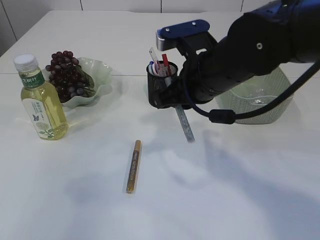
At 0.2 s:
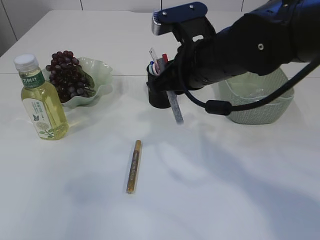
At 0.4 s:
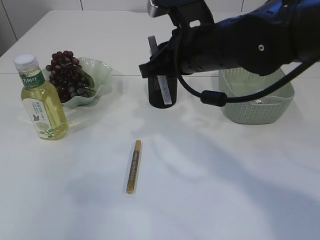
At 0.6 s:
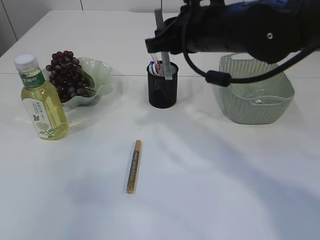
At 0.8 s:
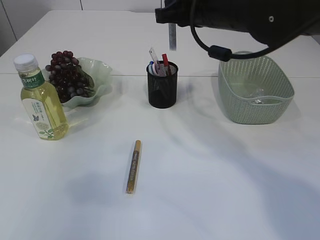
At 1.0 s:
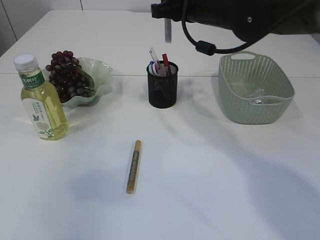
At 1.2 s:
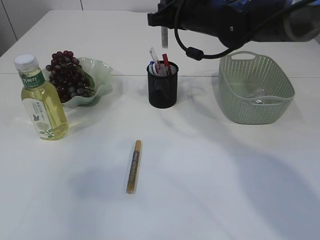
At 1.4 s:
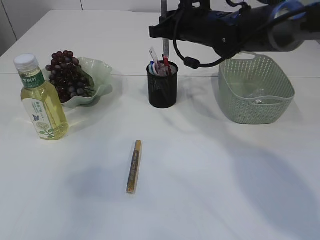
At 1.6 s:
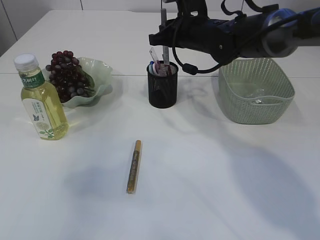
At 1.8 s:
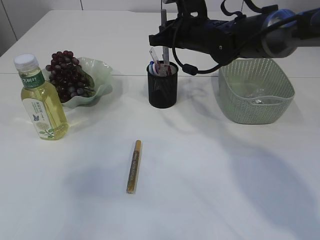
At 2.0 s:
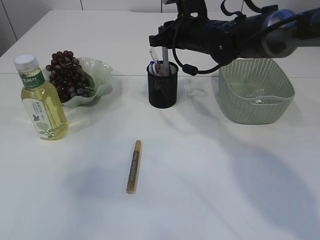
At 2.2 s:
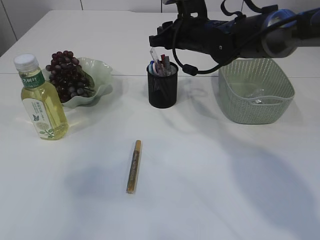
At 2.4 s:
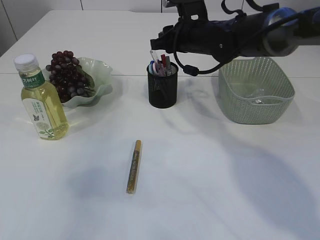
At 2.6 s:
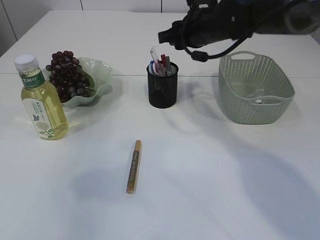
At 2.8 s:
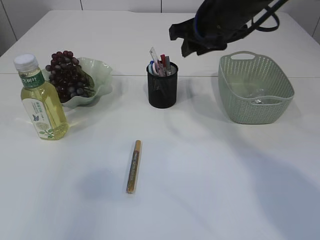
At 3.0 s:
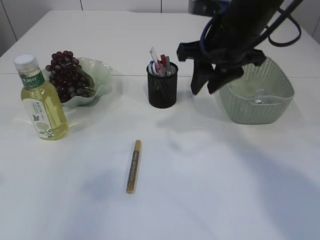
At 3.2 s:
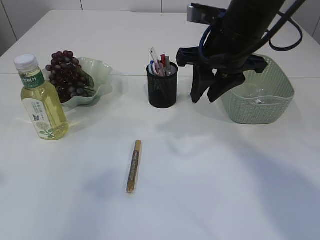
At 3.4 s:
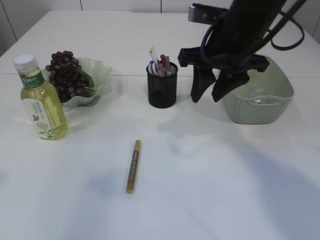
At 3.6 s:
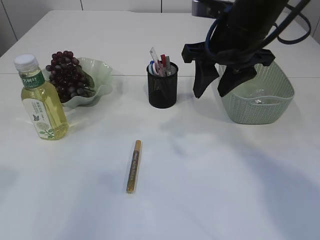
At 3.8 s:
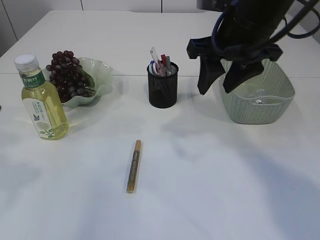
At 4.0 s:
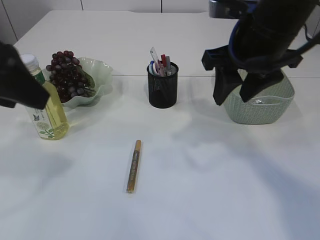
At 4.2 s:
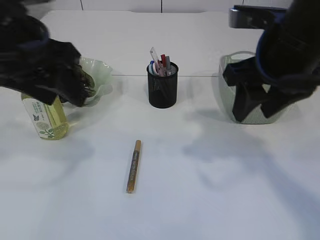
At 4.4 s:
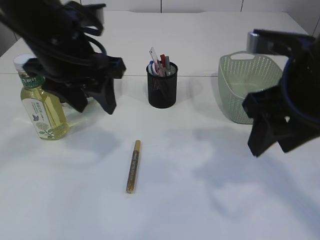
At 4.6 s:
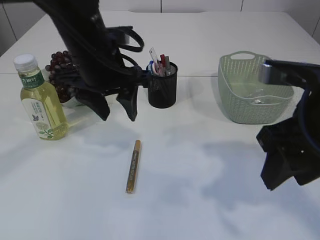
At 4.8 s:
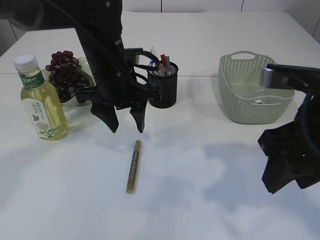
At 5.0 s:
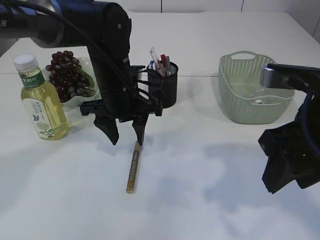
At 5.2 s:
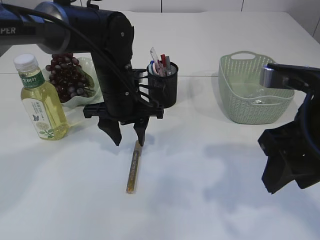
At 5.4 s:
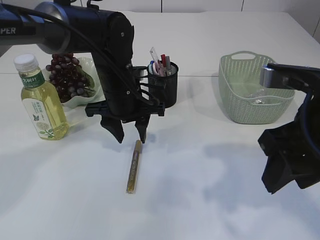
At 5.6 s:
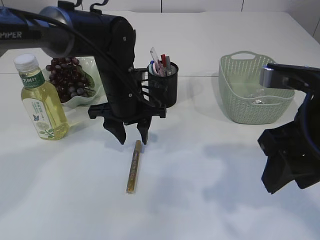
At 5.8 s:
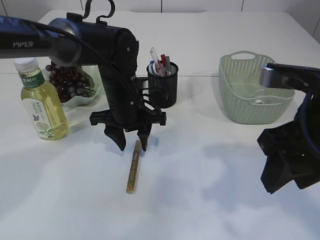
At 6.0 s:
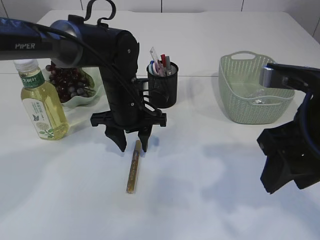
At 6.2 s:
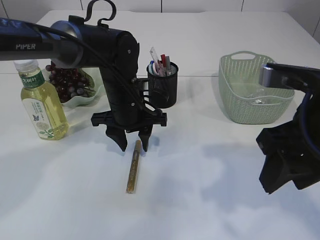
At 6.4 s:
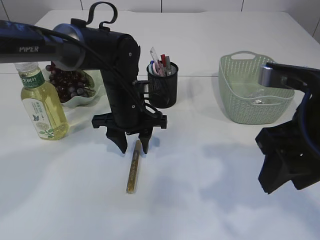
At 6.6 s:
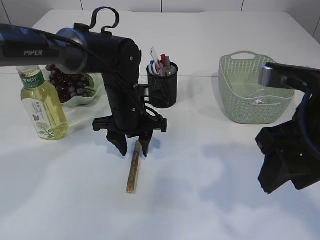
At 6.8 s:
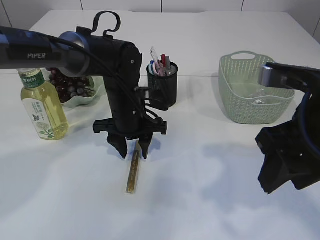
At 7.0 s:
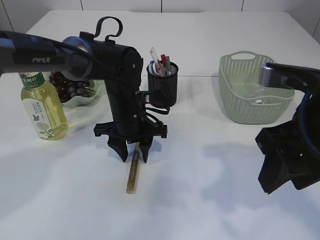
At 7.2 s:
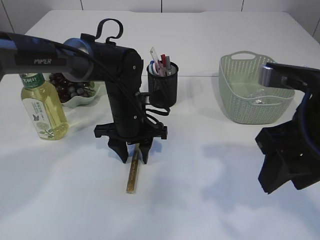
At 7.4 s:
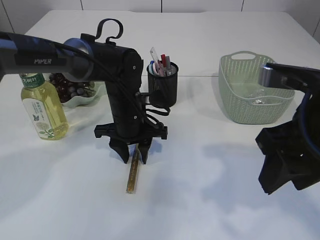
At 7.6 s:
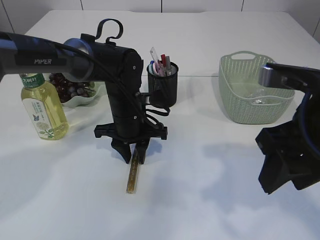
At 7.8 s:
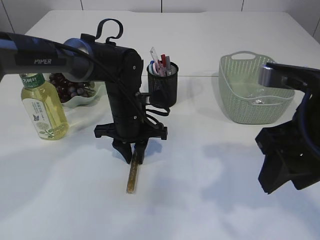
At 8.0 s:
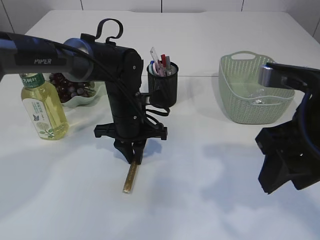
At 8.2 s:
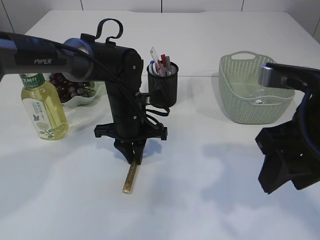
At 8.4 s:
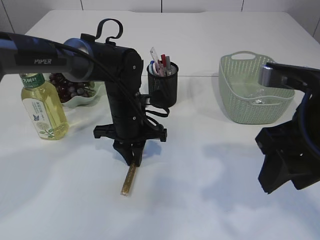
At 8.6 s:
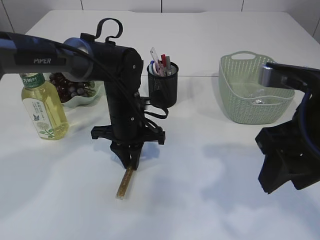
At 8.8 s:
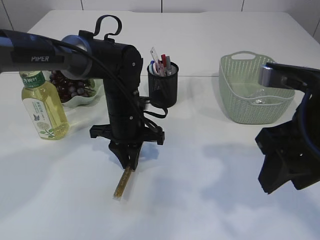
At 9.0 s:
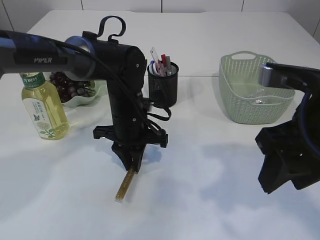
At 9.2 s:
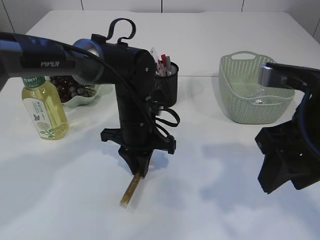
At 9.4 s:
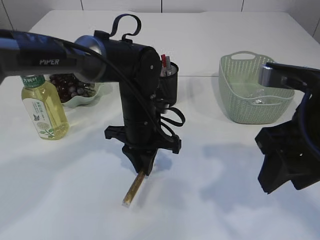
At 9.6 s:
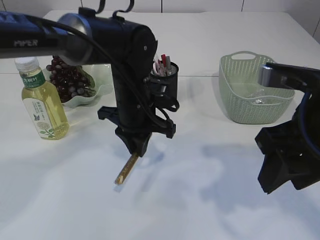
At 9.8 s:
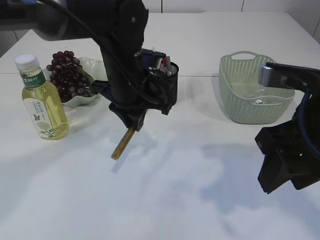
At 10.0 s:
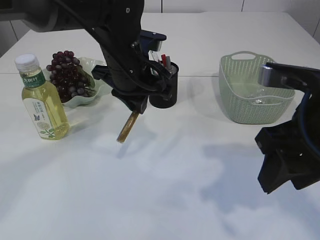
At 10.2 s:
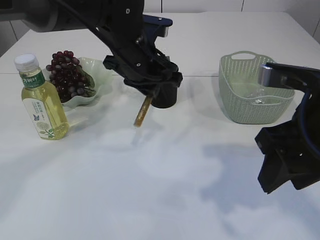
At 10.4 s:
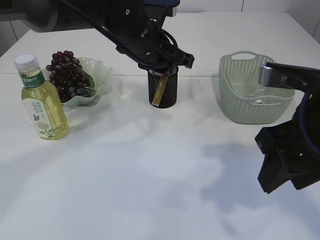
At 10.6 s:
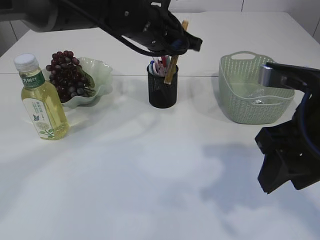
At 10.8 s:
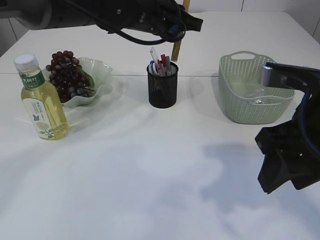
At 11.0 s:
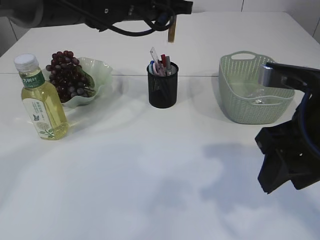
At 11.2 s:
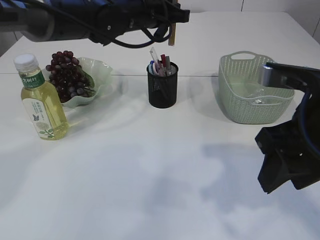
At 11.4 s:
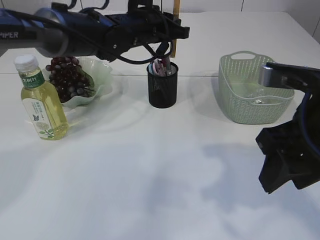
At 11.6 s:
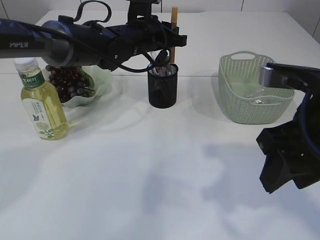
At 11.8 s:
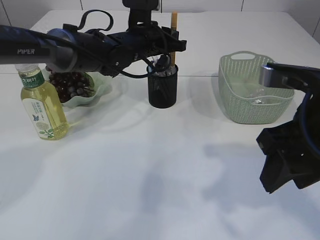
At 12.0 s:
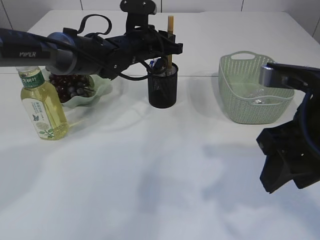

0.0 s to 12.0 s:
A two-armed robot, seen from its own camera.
Step, 0.0 to 2.6 s: place the silver glue into the pen holder.
Step, 2.8 to 10.0 s: pick up the yellow glue.
0.0 to 1.6 s: The right gripper is displaced forward by about 15 cm.
1.6 to 3.0 s: The right gripper is displaced backward and upward by about 10 cm.
3.0 to 4.4 s: The right gripper is displaced backward and to the right by roughly 15 cm; the left gripper moves to the right and forward, approximately 20 cm.
4.4 to 6.0 s: The left gripper is displaced downward and forward by about 15 cm.
6.0 to 9.0 s: There are only small adjustments of the grippers.
9.0 to 10.4 s: The left gripper heads upward, covering approximately 15 cm.
10.4 to 12.0 s: The left gripper goes about 10 cm forward and downward.

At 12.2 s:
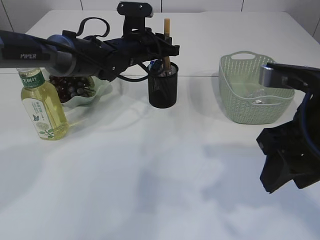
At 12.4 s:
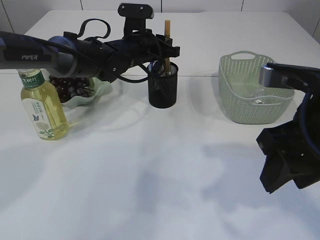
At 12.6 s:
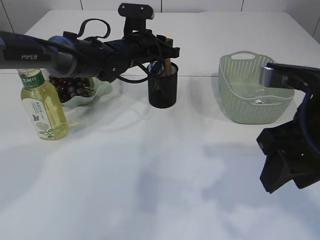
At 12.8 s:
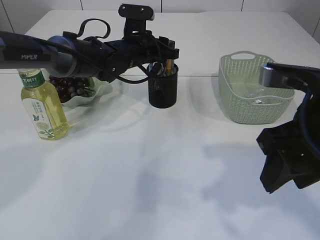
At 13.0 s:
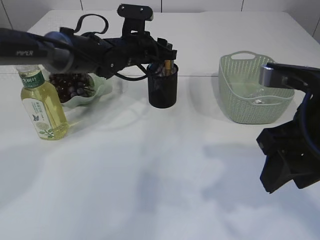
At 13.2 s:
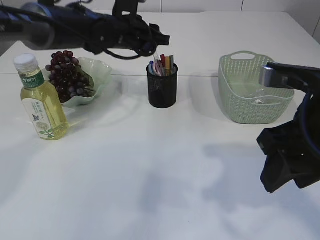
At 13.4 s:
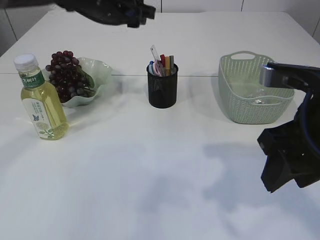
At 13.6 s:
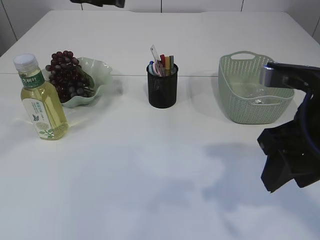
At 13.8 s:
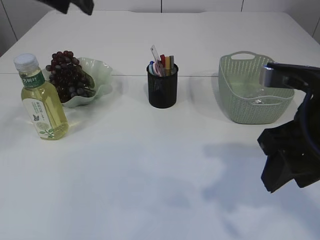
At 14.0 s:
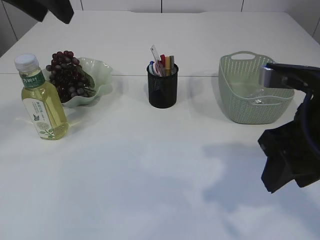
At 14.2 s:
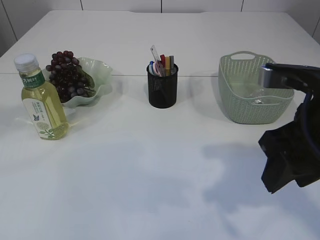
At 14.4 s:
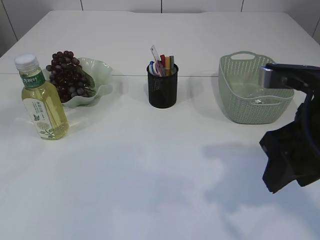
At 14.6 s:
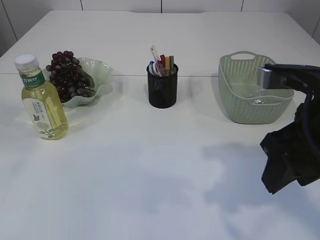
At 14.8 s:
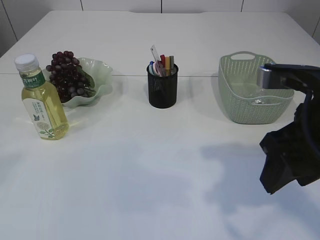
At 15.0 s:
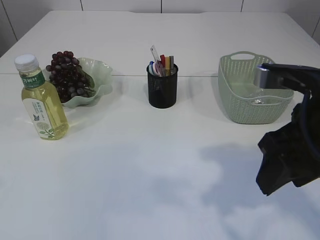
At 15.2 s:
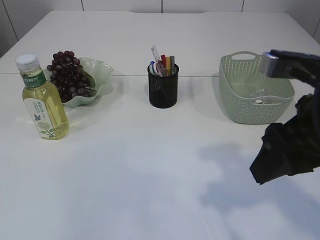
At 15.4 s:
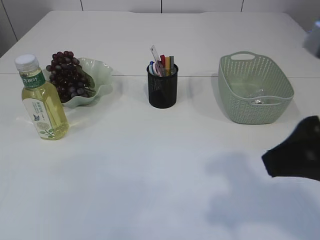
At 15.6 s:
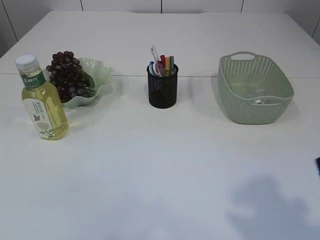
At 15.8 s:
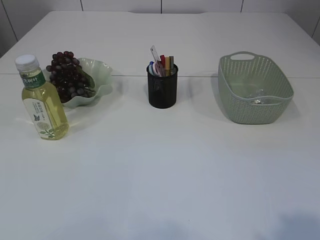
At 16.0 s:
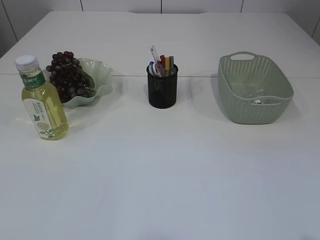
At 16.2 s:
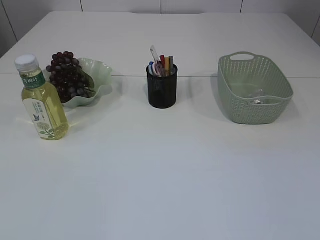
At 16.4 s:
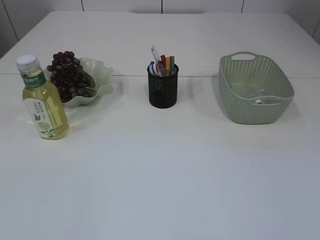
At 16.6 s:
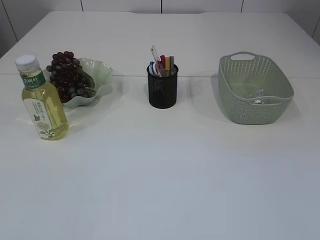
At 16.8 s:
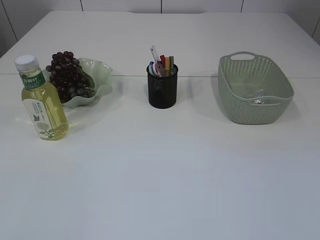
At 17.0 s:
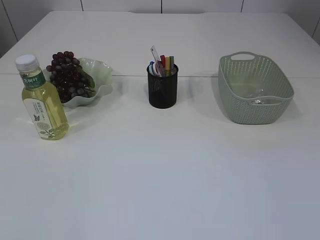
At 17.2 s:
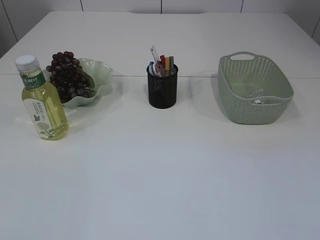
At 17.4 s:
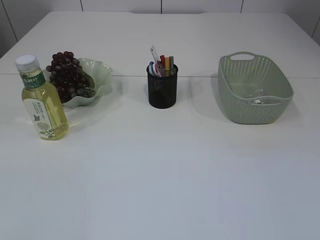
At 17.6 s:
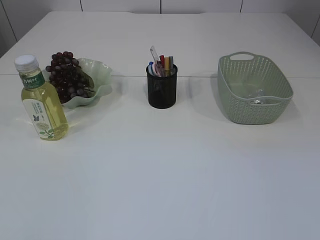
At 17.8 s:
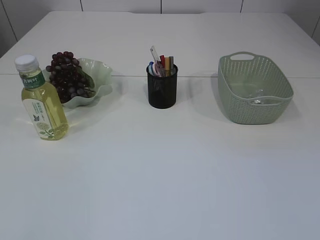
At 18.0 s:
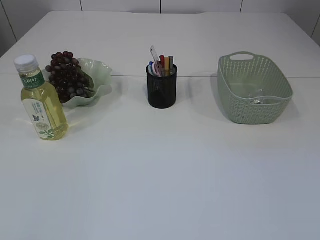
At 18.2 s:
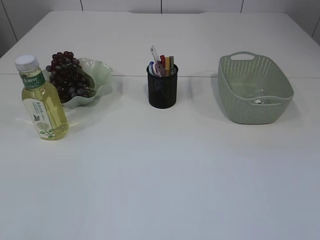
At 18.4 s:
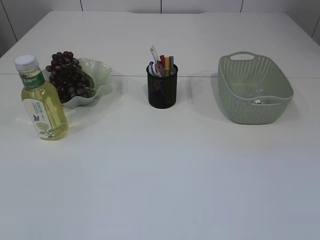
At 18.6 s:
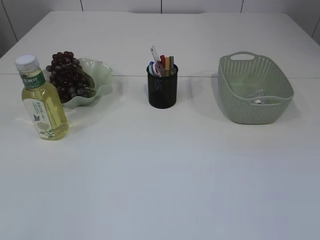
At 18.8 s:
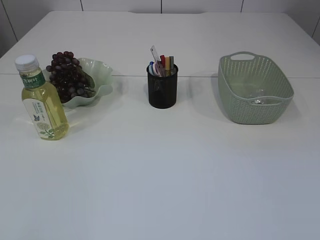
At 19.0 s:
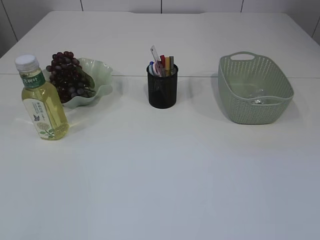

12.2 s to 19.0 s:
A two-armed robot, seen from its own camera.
12.2 to 13.6 s: The left gripper travels upward and backward by some 20 cm, and opens.
15.0 to 16.2 s: The right gripper goes some 25 cm backward and to the right.
17.6 to 19.0 s: The two grippers keep their place.

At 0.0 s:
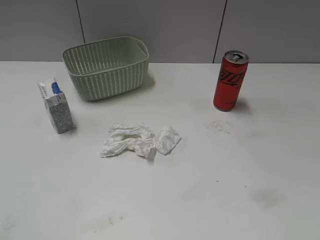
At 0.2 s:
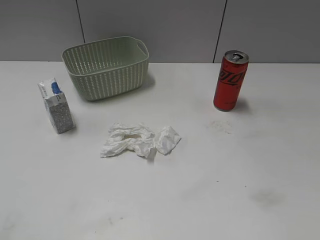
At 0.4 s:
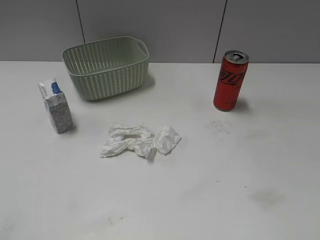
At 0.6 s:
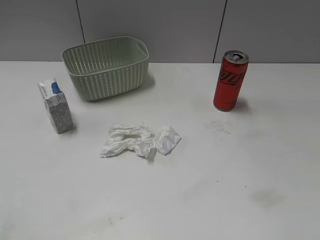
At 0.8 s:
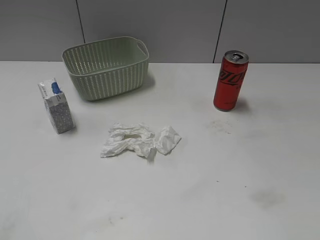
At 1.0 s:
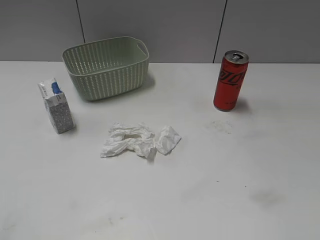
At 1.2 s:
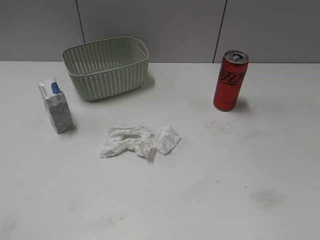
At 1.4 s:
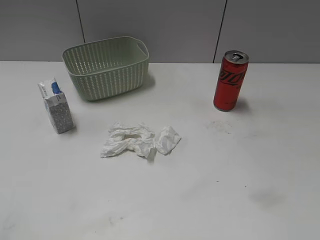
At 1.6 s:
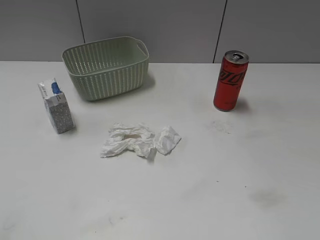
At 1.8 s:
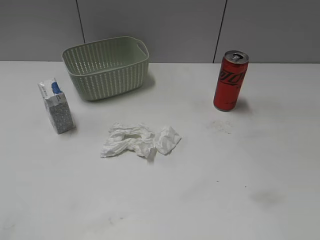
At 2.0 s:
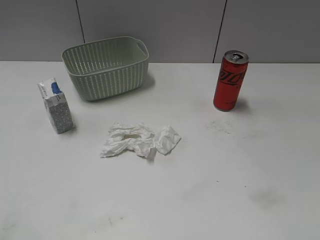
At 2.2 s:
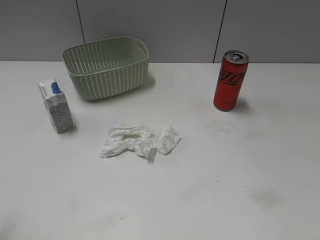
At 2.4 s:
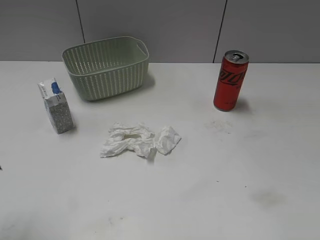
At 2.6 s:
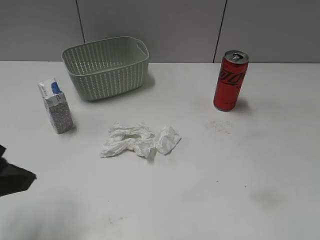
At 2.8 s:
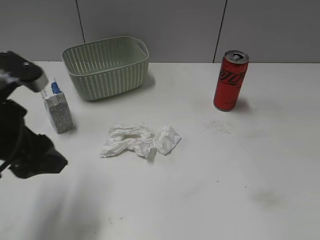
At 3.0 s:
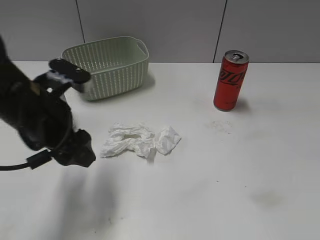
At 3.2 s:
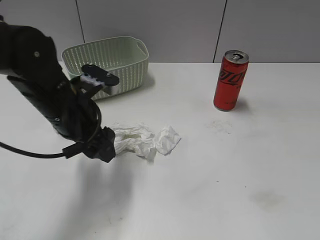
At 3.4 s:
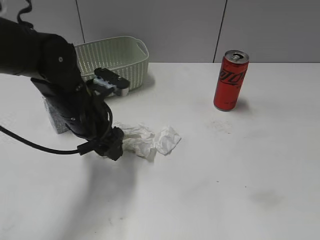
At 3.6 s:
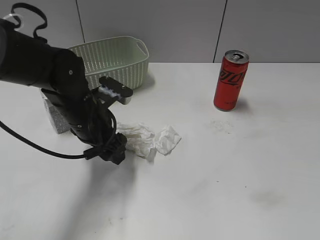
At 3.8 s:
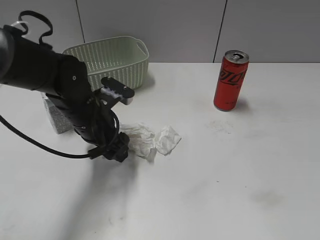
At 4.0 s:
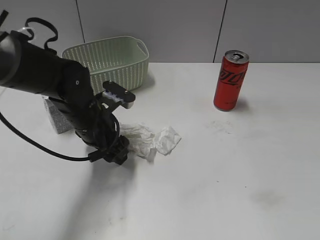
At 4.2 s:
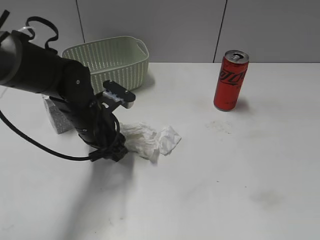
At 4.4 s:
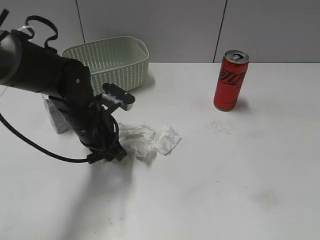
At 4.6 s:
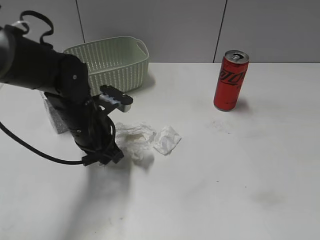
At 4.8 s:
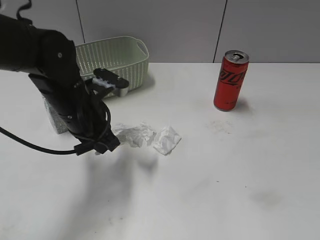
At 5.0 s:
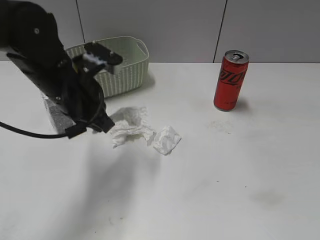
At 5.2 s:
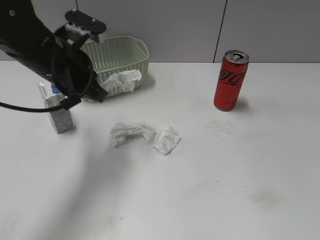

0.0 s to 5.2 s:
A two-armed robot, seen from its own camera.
Step, 2.4 to 4.6 s: Grasp the waste paper with left gripper.
1.8 to 3.4 s: The left gripper travels forward, to the right and downward by about 35 cm.
3.4 to 5.2 s: The left gripper is displaced upward by some 5 cm, and closes.
